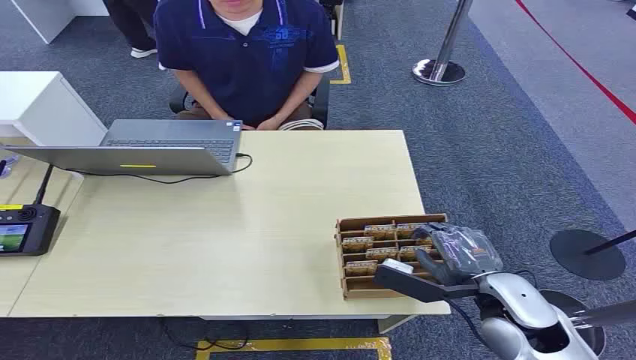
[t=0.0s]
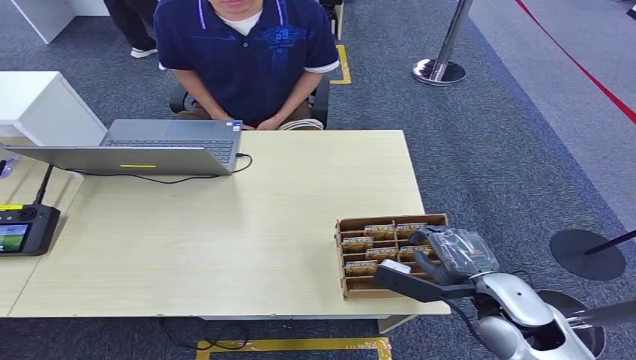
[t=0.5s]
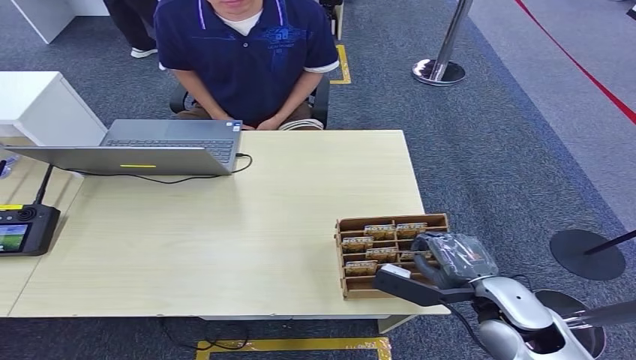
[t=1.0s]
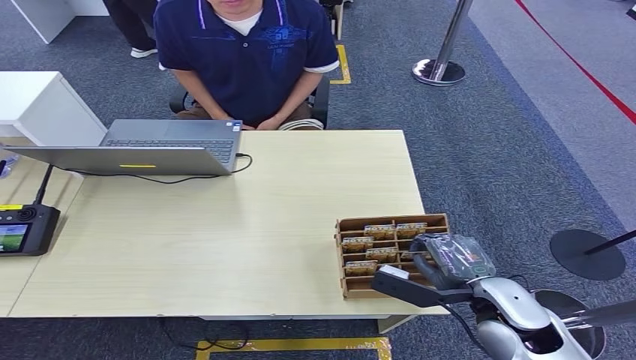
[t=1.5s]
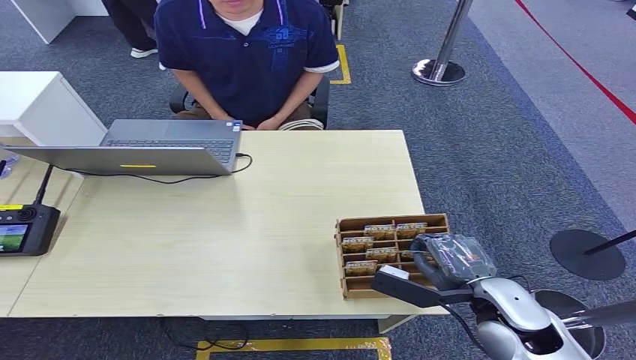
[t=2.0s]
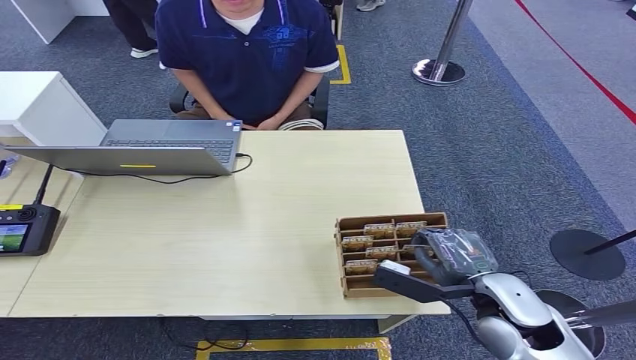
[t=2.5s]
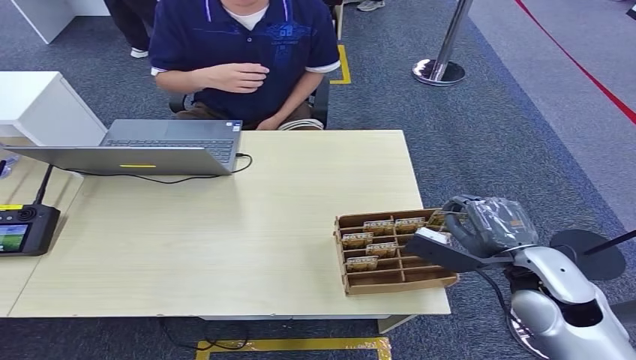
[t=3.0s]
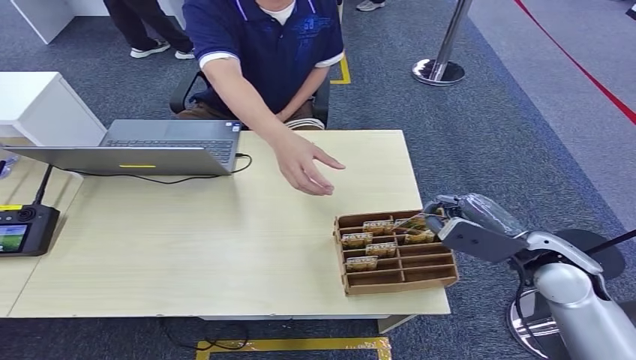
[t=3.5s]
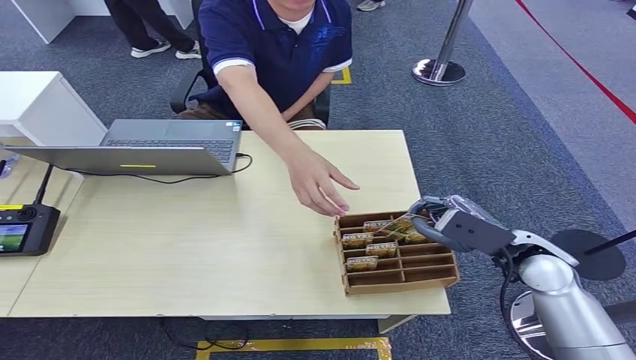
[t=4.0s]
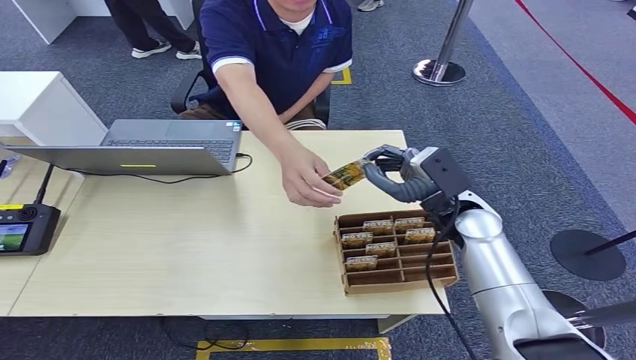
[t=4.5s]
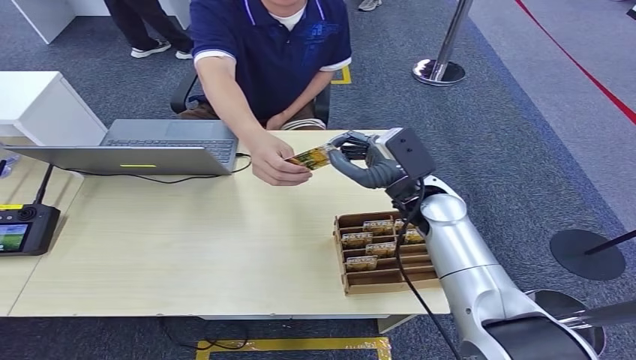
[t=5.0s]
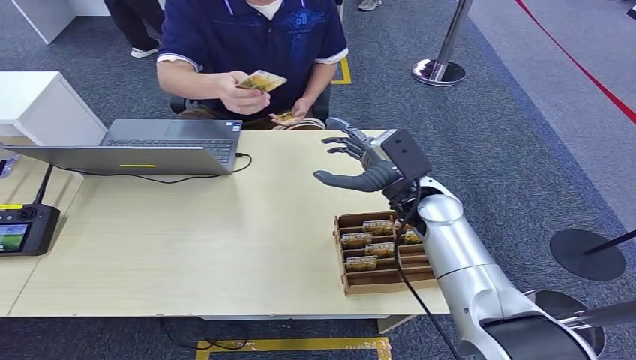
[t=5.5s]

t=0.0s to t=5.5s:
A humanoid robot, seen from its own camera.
Step, t=0.0s to t=2.5s: Pick up the room card from the card holder.
Step, t=3.0s to t=5.5s: Hand the room card to the target.
t=2.0s to t=3.5s: The right hand goes approximately 10 cm to the right, forward and upward.
t=3.5s to t=5.5s: The right hand heads to the left and forward, covering about 20 cm.
